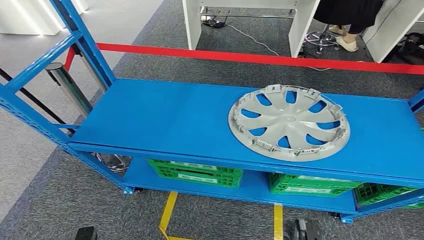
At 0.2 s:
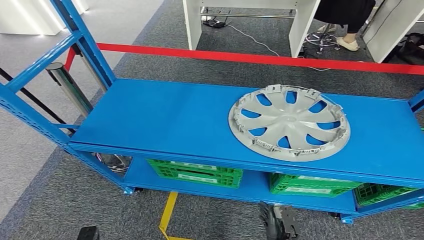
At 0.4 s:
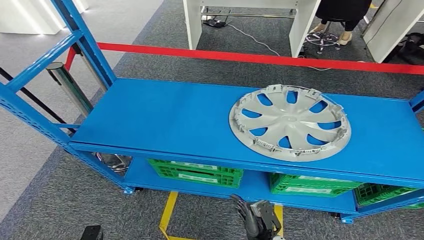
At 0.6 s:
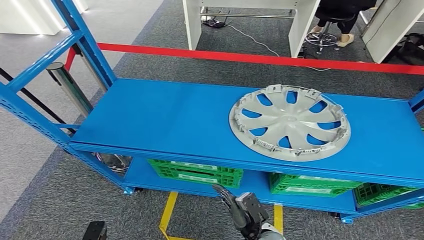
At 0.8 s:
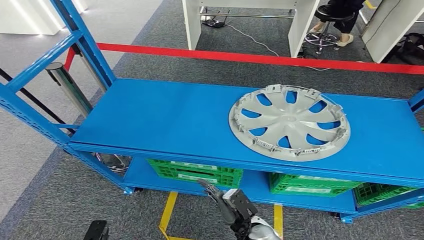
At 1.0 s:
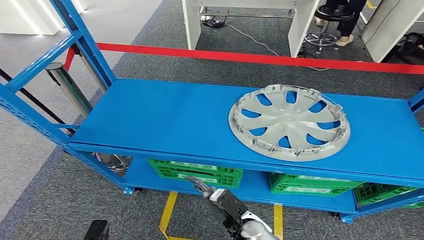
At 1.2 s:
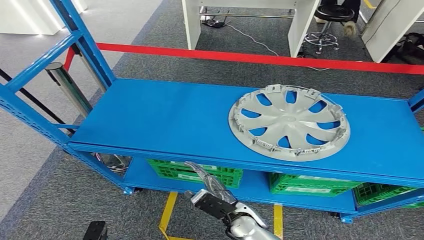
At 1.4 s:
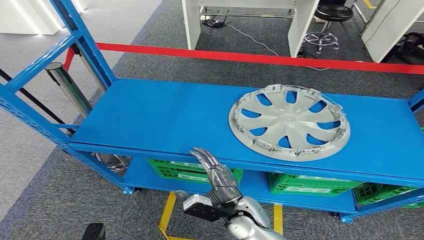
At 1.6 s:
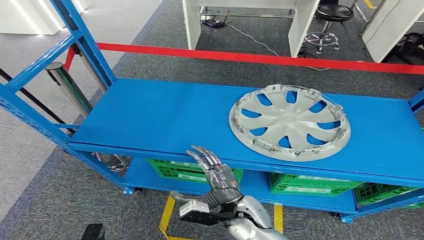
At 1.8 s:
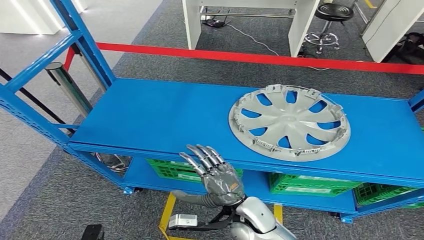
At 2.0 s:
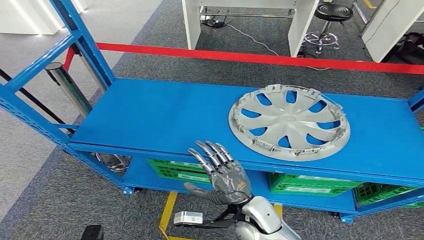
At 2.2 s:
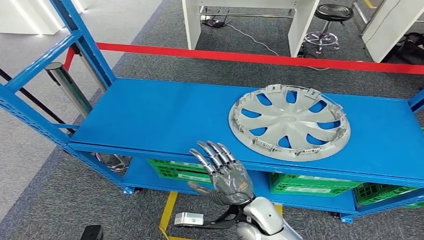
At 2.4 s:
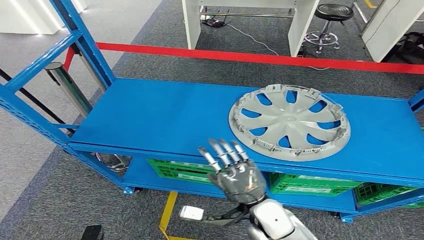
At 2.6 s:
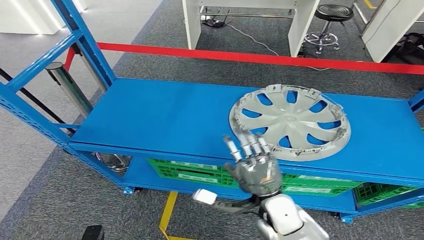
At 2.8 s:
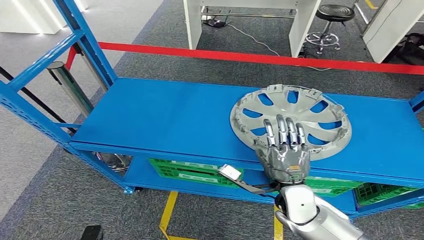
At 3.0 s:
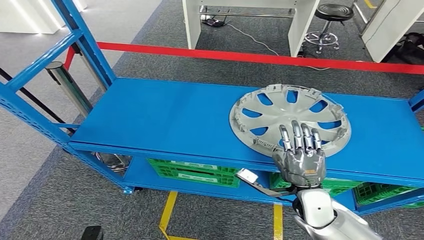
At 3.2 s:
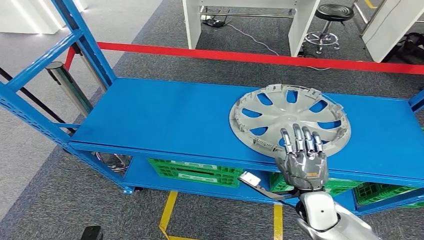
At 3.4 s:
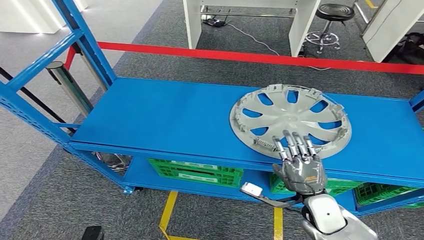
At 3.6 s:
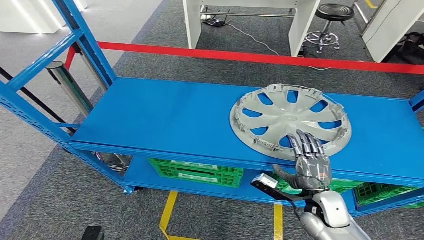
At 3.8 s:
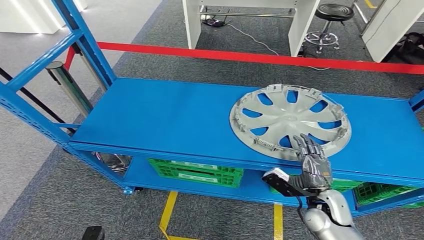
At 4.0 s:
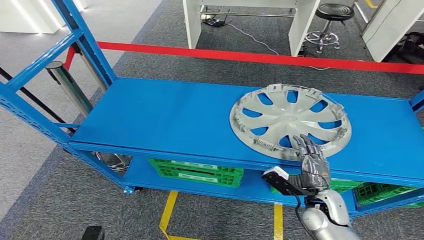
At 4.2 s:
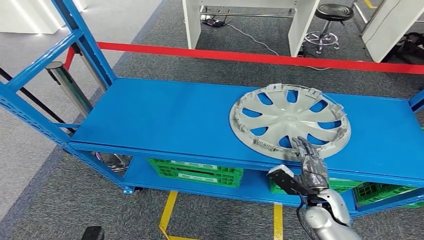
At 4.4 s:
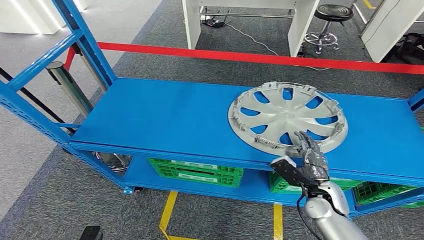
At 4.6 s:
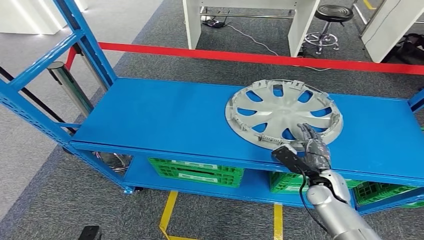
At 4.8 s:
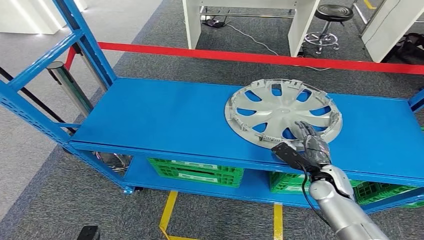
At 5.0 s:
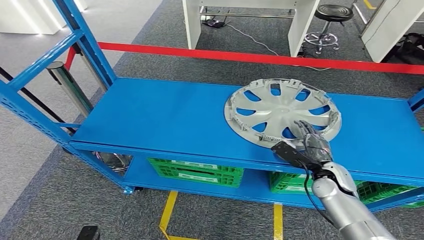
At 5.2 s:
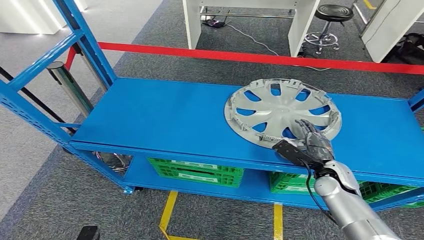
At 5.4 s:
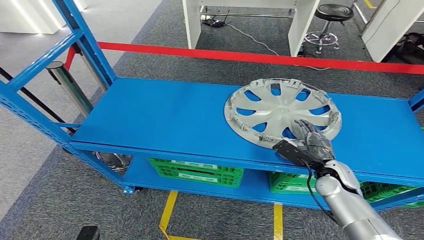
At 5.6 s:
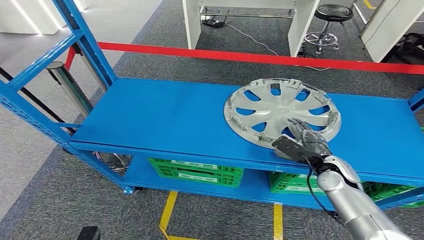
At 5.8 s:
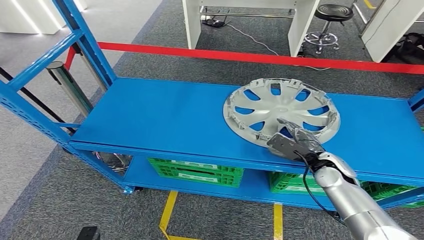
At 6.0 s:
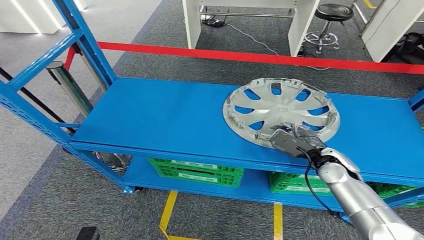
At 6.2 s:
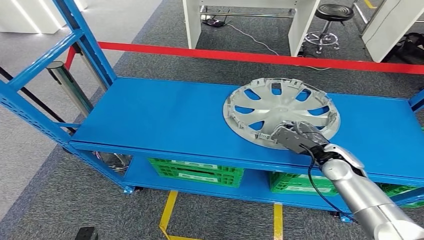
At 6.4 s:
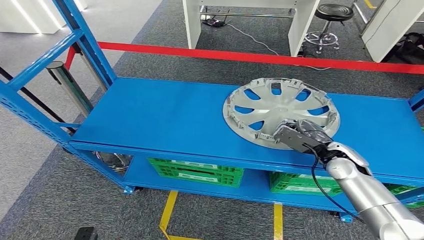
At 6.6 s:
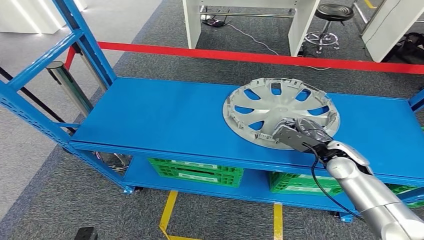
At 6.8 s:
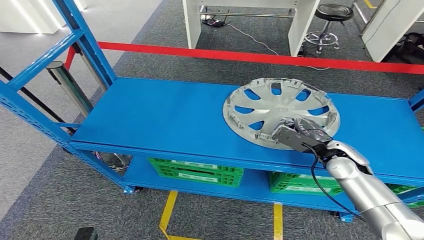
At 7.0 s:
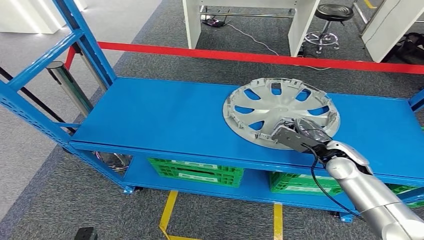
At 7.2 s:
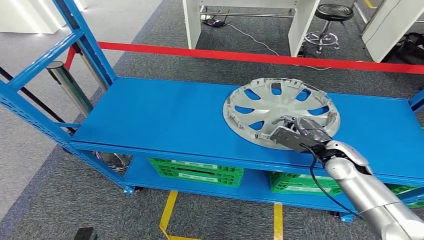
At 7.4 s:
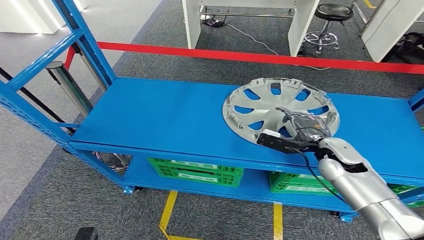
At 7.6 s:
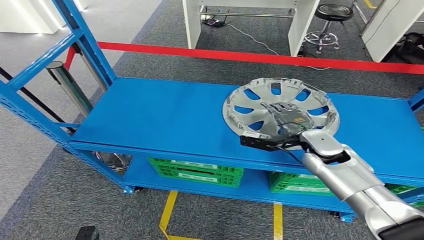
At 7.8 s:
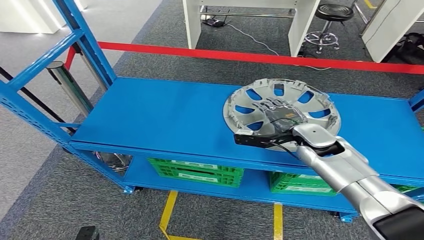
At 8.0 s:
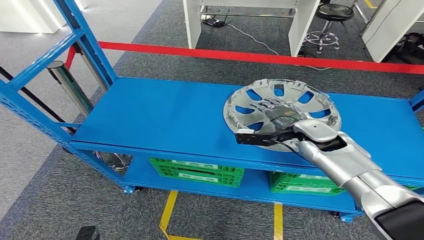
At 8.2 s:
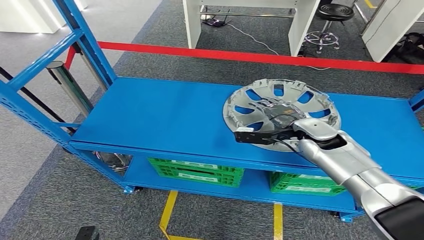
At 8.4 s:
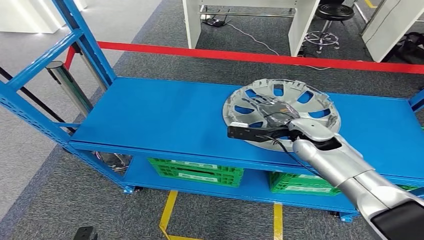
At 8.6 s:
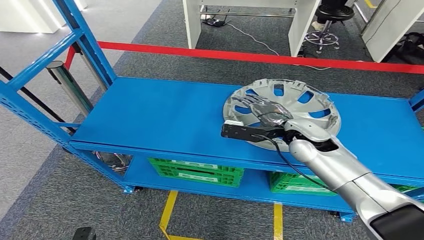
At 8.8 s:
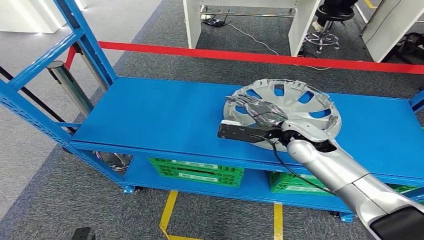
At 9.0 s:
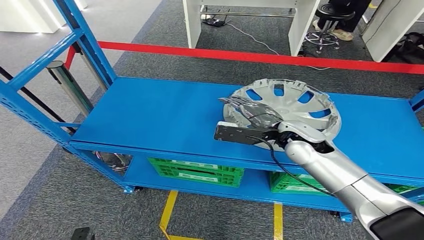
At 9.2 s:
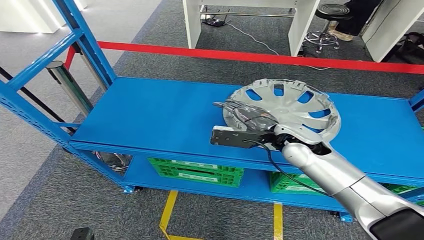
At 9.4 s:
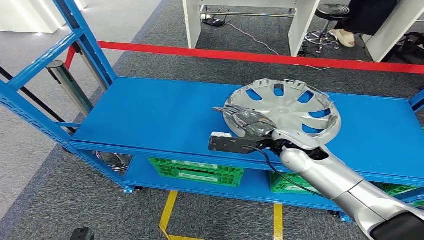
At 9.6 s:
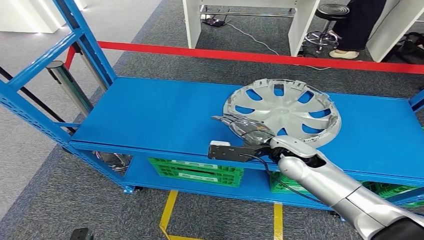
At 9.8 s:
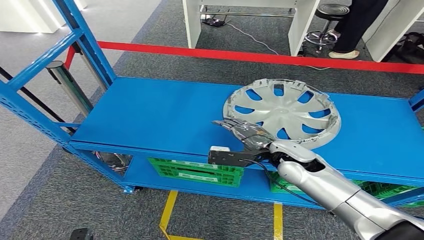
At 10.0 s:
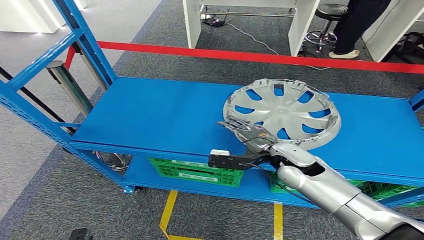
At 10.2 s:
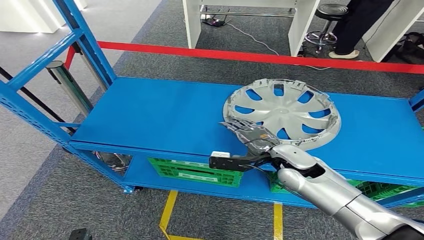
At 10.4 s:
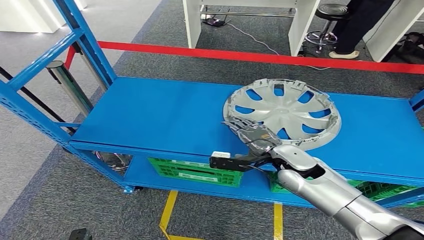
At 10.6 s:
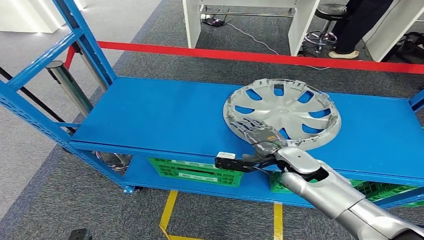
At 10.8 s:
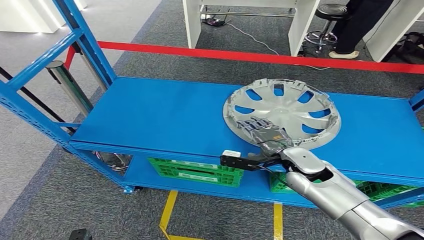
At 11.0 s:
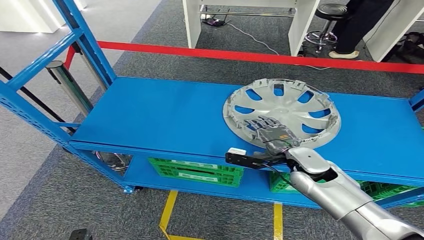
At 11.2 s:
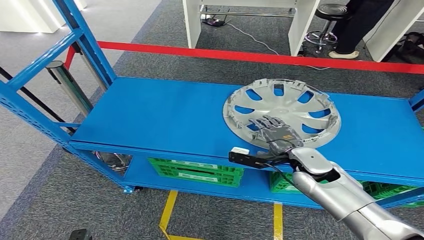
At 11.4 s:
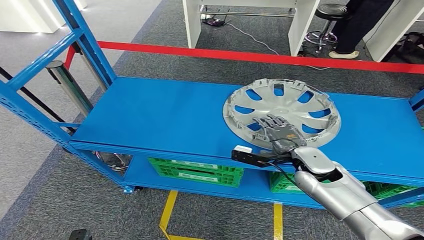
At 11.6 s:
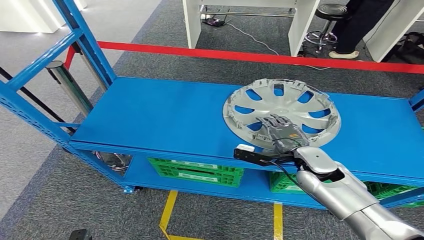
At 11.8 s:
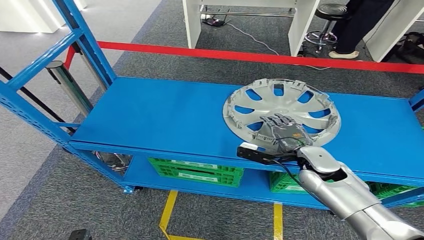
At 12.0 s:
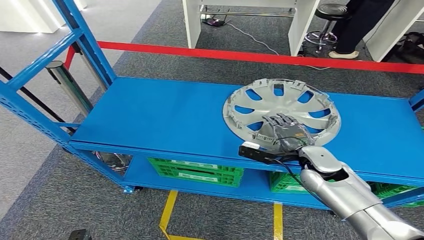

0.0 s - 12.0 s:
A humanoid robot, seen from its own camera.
1.6 s - 3.0 s: The right hand moves to the right, roughly 15 cm.
3.0 s - 4.4 s: The right hand ends up approximately 5 cm from where it was.
4.4 s - 6.0 s: The right hand heads forward and upward, covering roughly 10 cm.
6.0 s - 7.6 s: The right hand shifts by roughly 5 cm.
7.6 s - 9.0 s: The right hand moves to the left, some 5 cm.
9.0 s - 10.4 s: The right hand moves downward, roughly 5 cm.
10.4 s - 12.0 s: The right hand shifts some 5 cm to the right.

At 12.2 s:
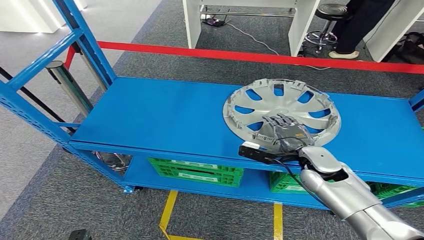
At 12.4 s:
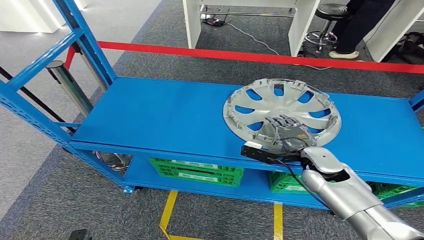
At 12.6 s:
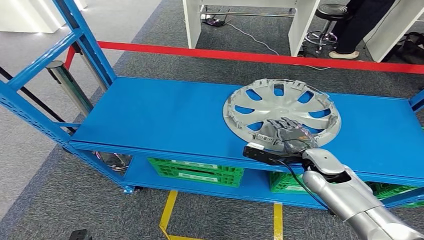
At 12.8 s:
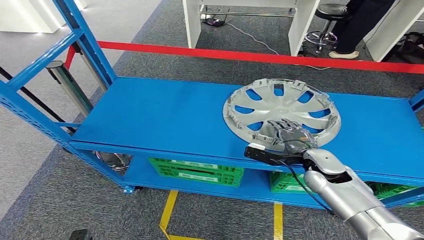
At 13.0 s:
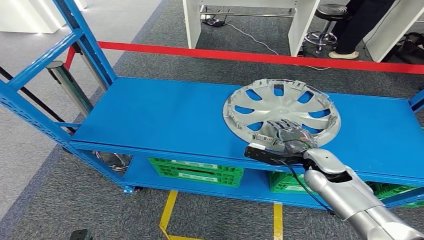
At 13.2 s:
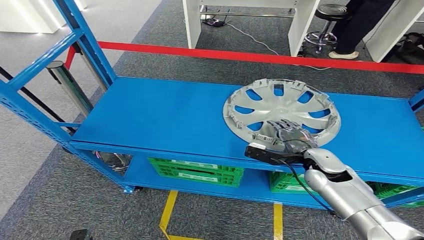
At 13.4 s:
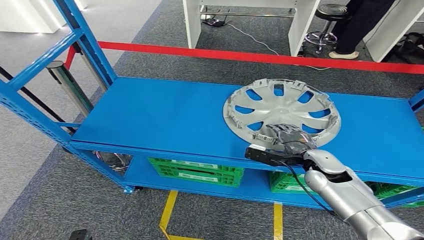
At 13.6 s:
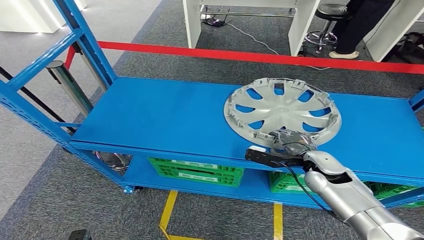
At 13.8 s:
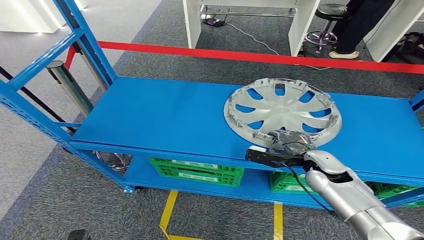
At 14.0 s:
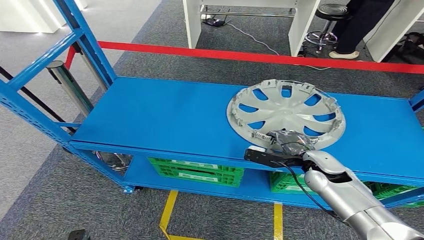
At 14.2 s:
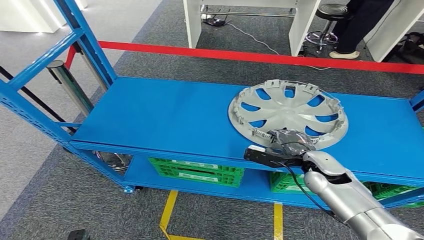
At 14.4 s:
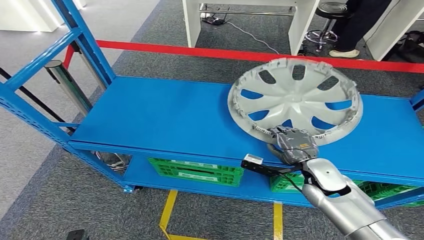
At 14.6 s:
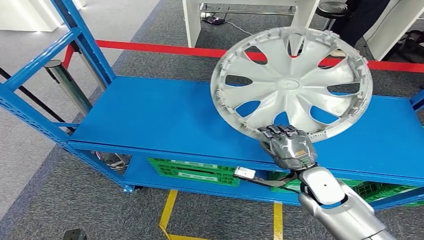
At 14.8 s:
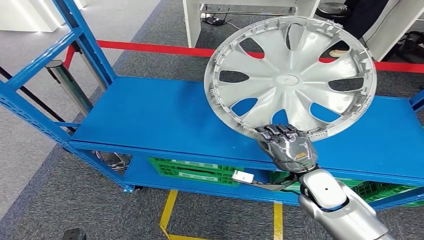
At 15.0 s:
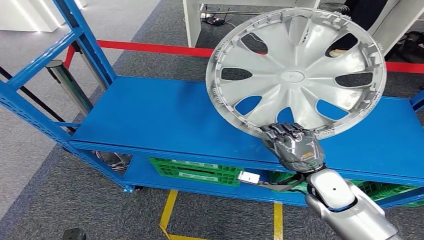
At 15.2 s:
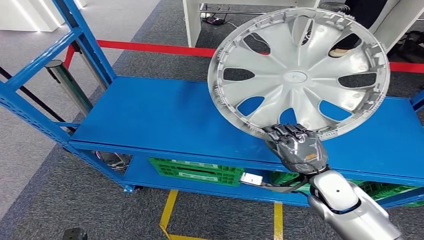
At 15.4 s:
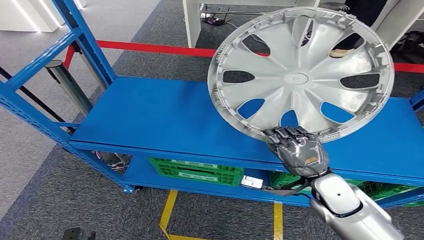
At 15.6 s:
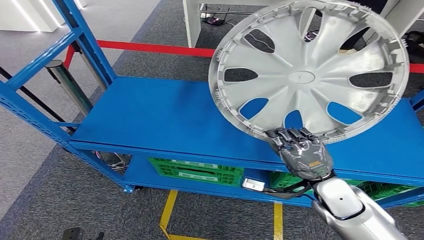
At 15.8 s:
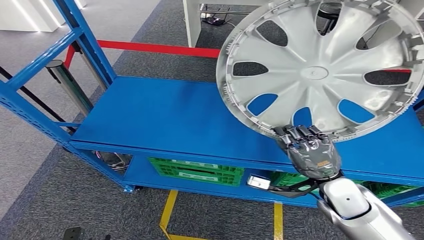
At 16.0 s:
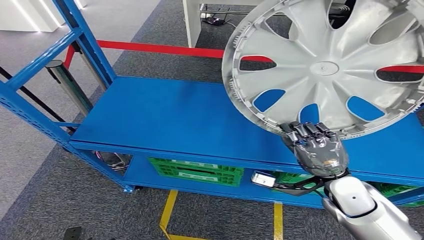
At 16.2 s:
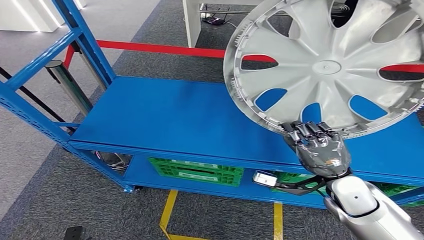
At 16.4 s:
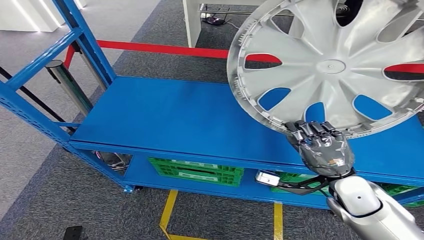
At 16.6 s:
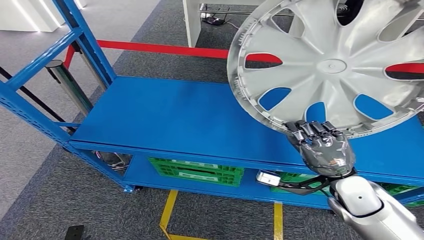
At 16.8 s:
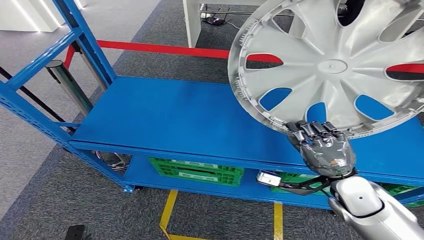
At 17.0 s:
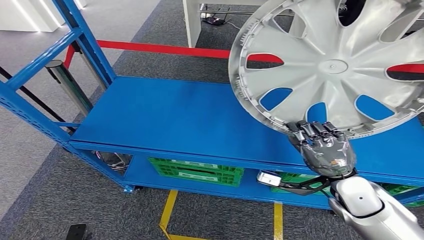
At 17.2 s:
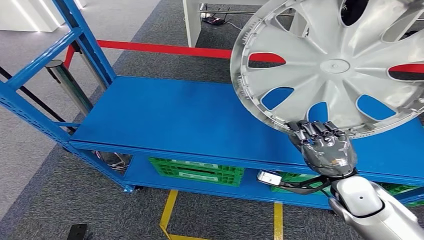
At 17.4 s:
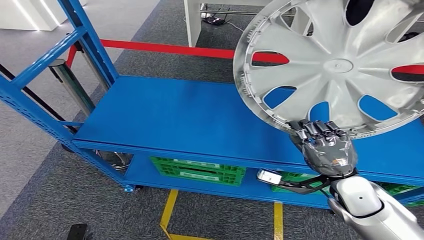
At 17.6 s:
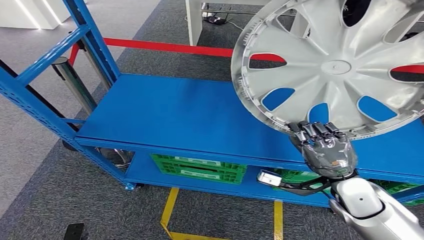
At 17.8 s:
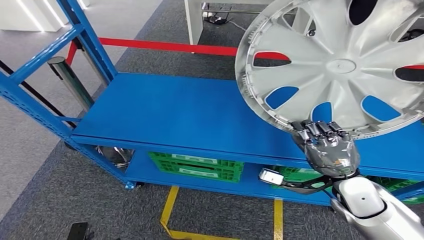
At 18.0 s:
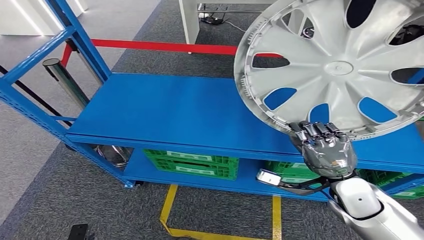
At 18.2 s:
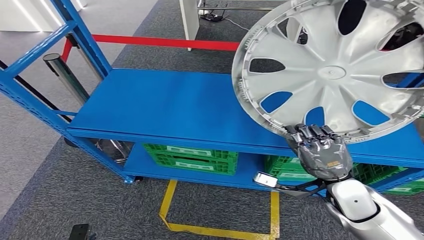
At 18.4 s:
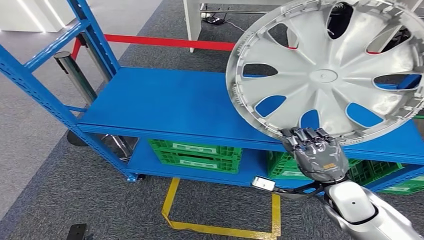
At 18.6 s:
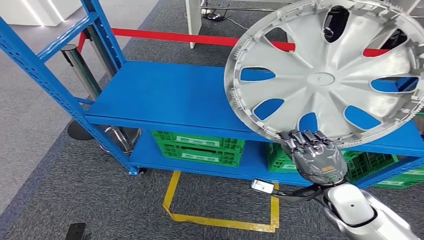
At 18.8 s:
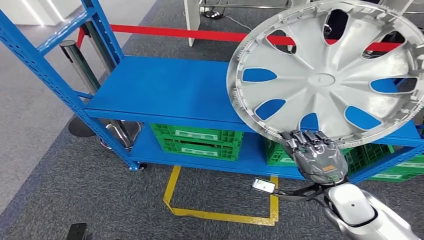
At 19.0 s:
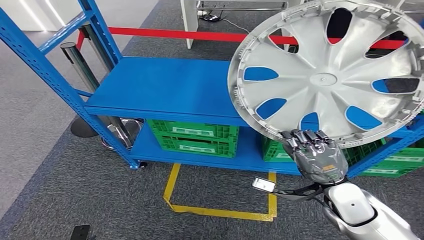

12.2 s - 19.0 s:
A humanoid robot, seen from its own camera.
Step, 12.2 s - 17.0 s: Pick up the small component from the shelf.
12.2 s - 13.6 s: The hands move only a little.
